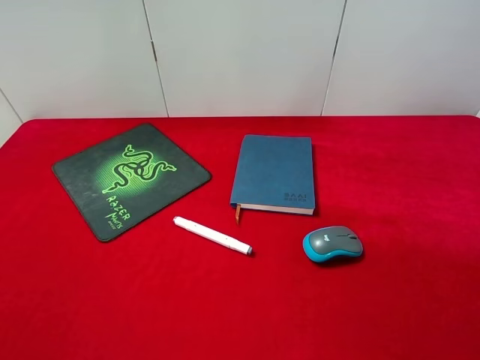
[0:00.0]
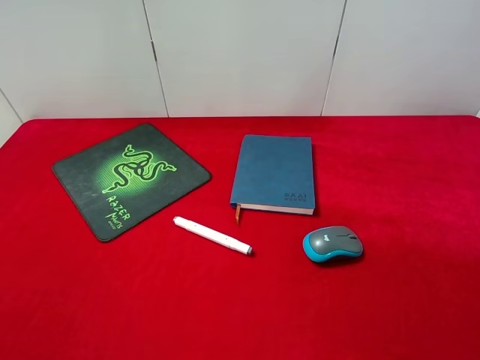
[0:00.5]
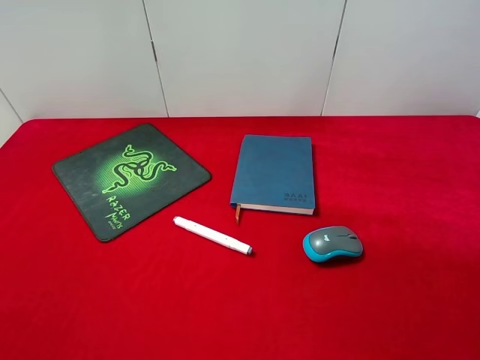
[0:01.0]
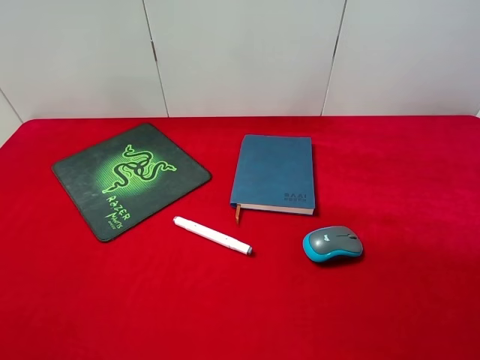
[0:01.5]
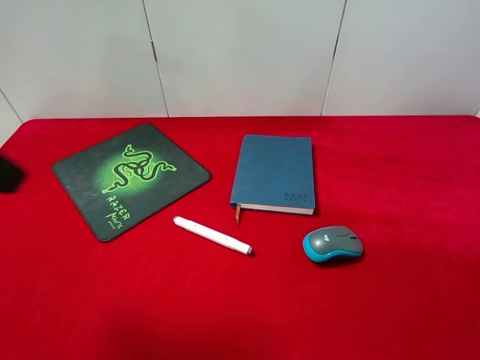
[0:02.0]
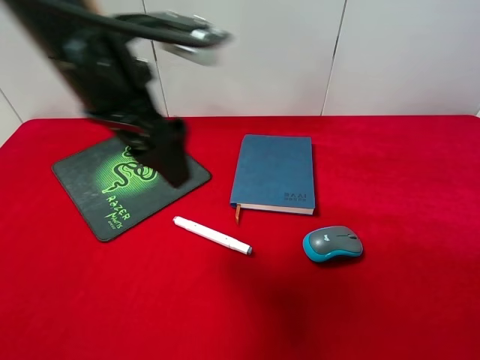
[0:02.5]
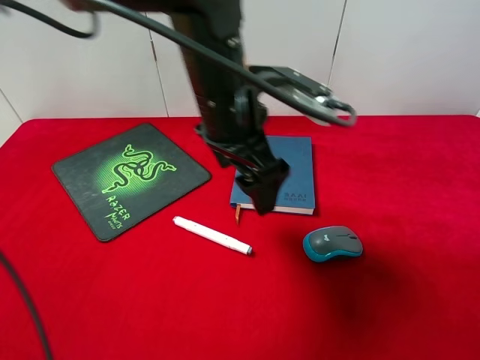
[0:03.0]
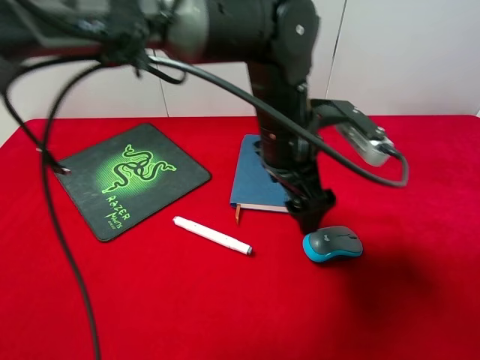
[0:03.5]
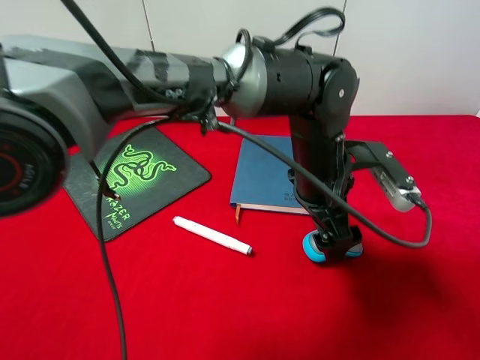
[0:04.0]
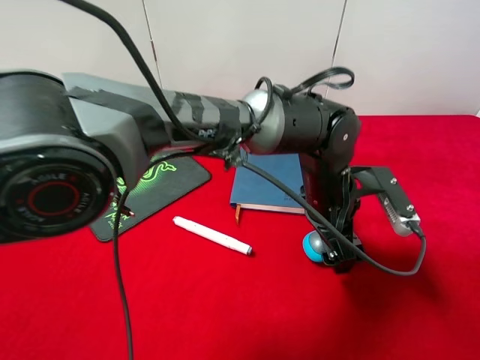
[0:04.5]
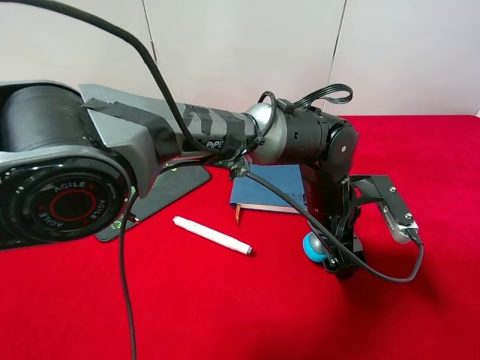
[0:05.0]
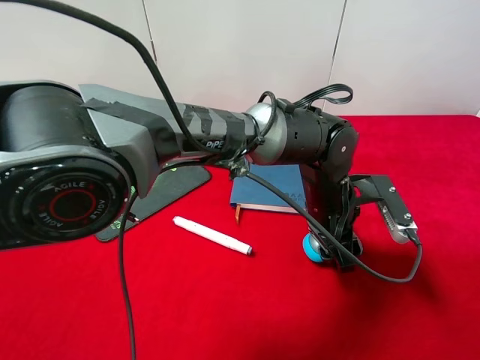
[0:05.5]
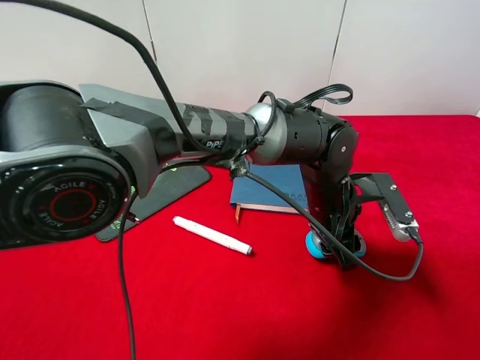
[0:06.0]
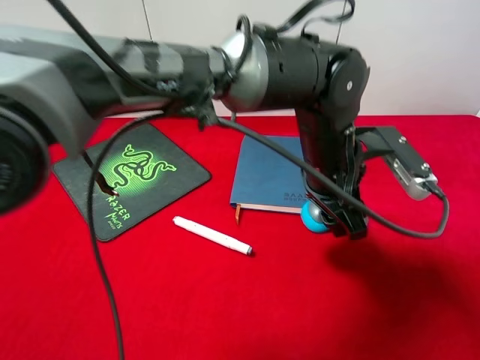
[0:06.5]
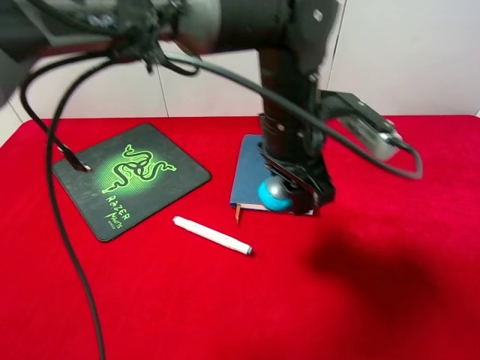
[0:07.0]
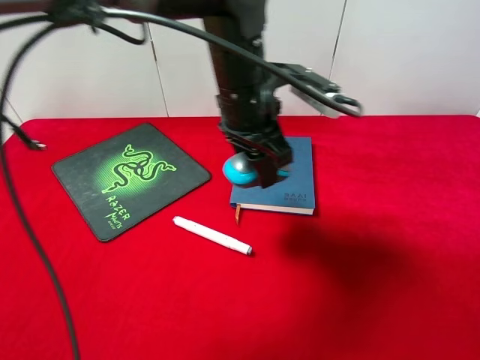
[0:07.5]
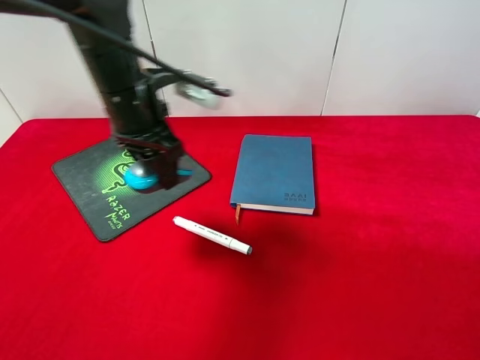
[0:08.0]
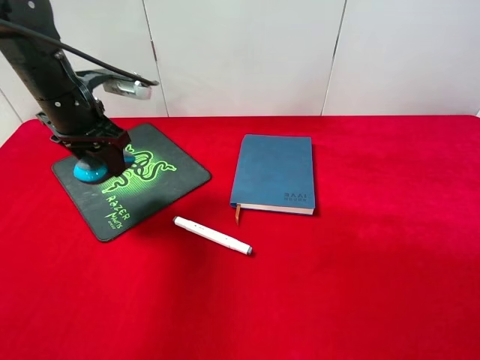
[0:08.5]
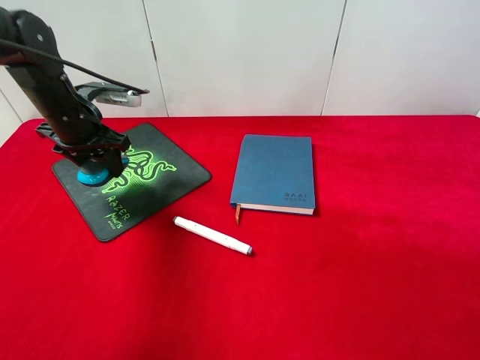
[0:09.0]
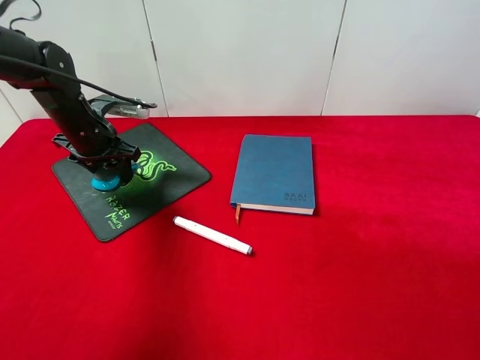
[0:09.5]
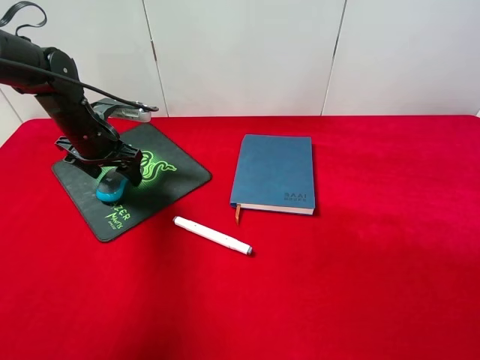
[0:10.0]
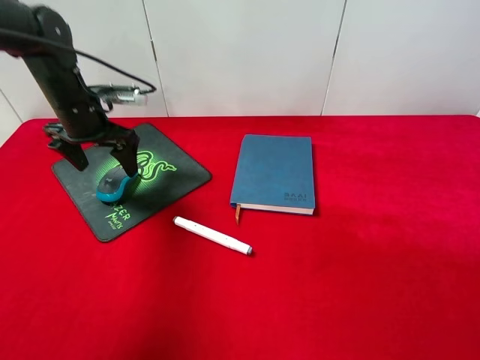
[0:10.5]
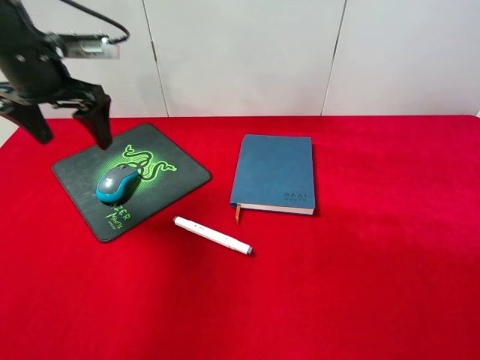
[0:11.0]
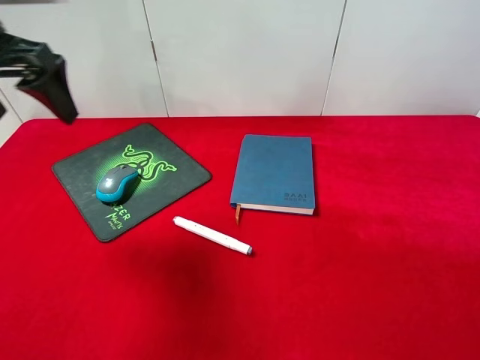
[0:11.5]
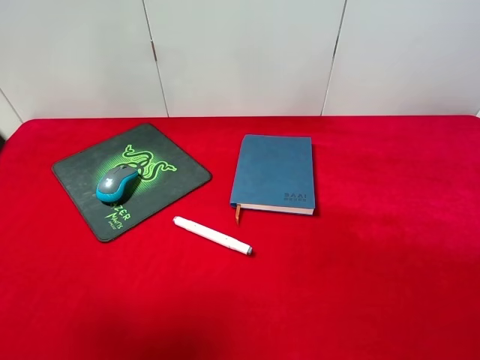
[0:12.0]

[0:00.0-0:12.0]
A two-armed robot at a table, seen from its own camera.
Step, 0:00.0 to 0:06.0: Pick up the mouse with left gripper.
Step, 0:06.5 to 0:10.0: Place the mouse on the mouse pad with left gripper.
0:02.0 to 0:04.0: The left gripper heads to the right and downward, covering roughly 40 cm.
0:04.0 to 0:06.0: The left gripper moves downward, roughly 5 cm, and closes.
0:06.0 to 0:08.0: The left gripper travels to the left and upward by about 30 cm.
0:08.0 to 0:10.0: The left gripper is displaced to the left, downward and forward by approximately 15 cm, and opens its fingers.
0:10.0 to 0:12.0: The left gripper heads backward and upward, covering about 35 cm.

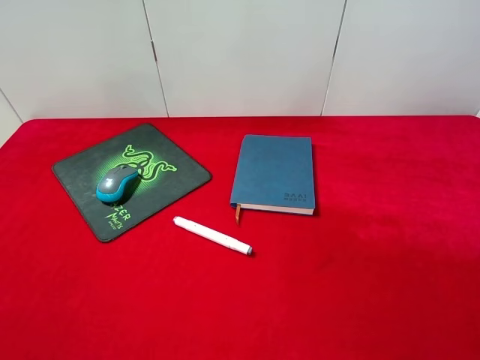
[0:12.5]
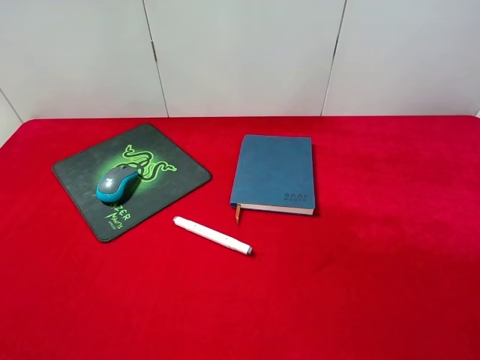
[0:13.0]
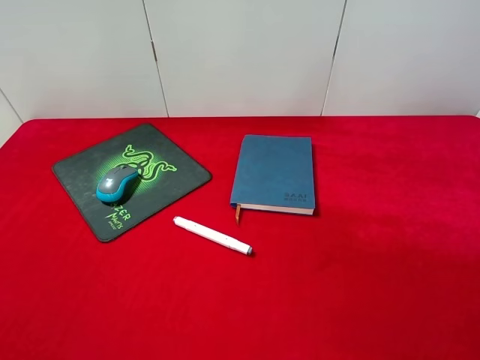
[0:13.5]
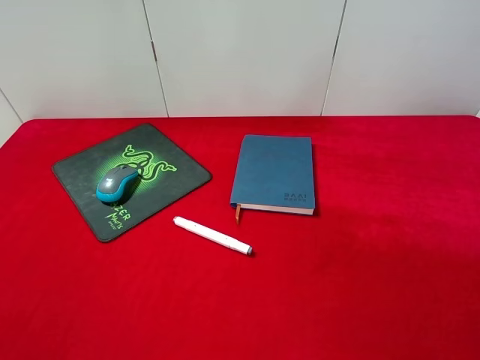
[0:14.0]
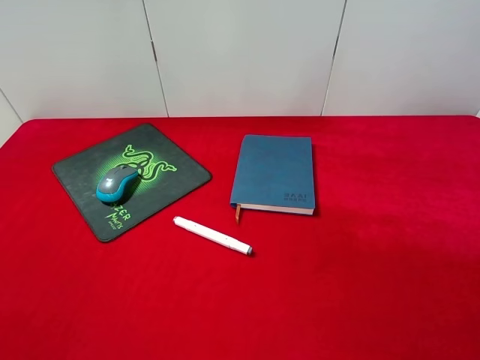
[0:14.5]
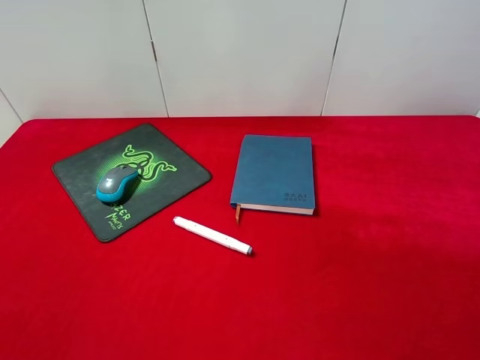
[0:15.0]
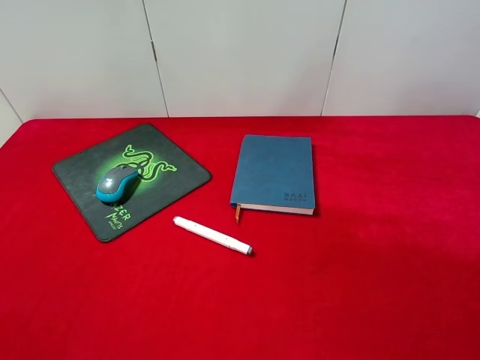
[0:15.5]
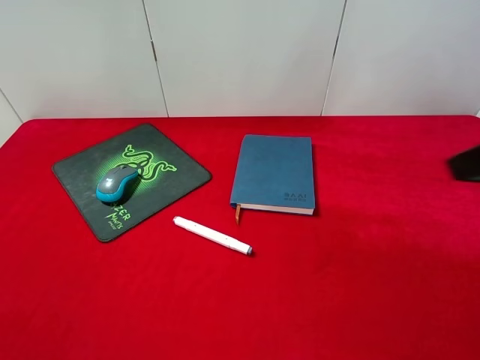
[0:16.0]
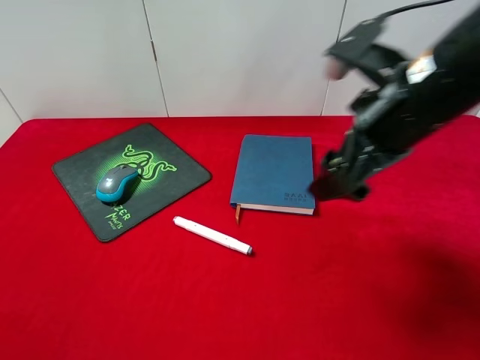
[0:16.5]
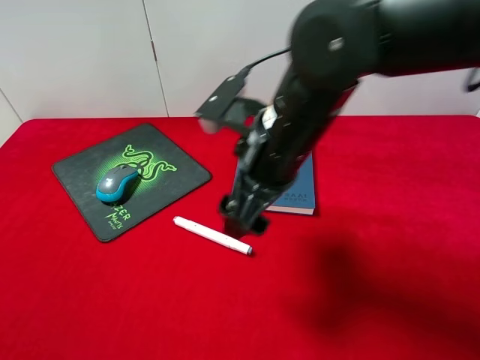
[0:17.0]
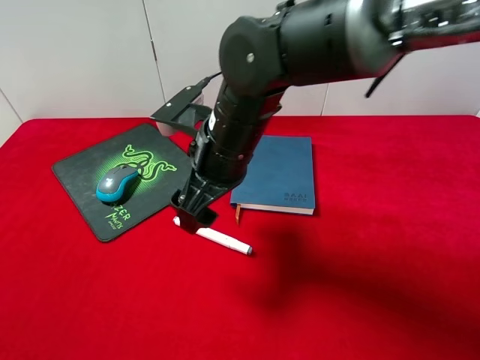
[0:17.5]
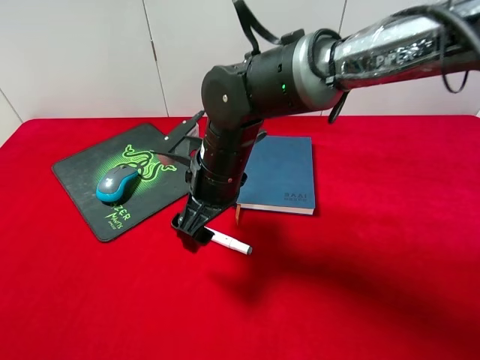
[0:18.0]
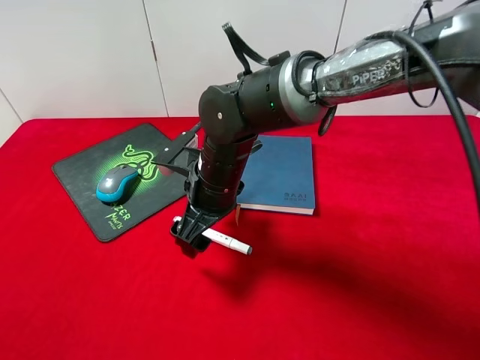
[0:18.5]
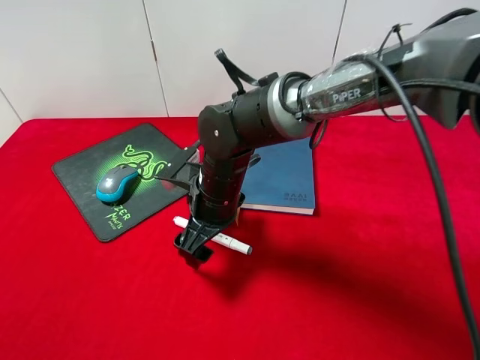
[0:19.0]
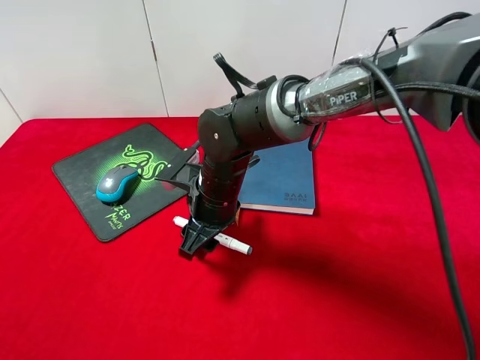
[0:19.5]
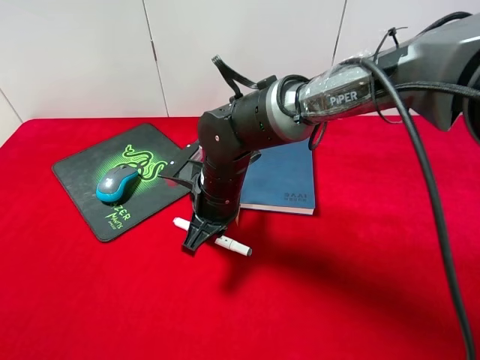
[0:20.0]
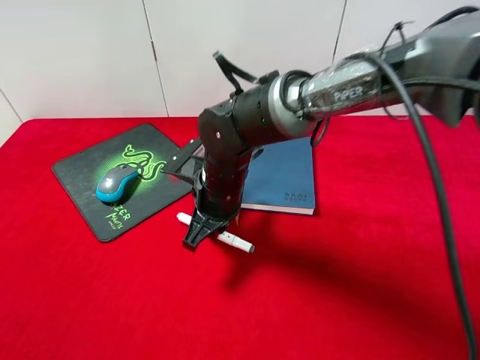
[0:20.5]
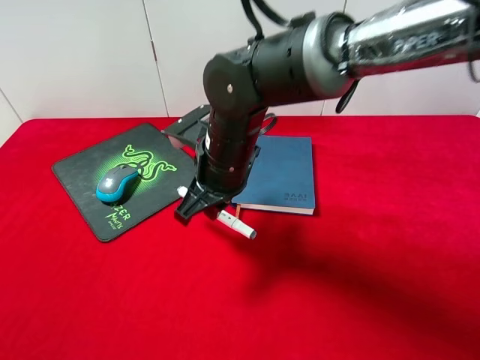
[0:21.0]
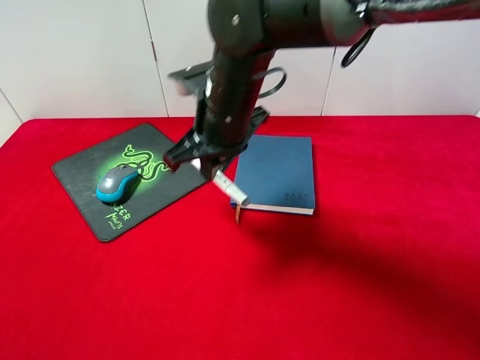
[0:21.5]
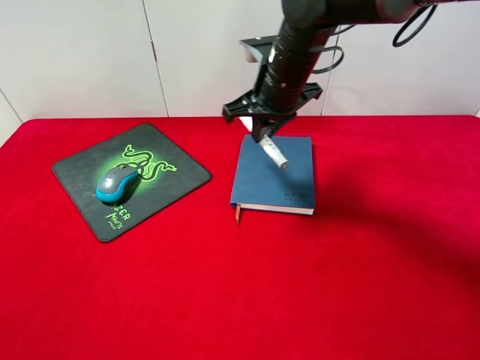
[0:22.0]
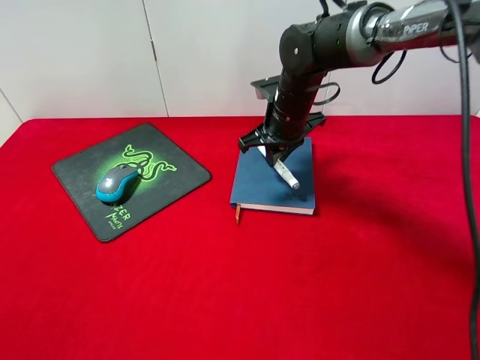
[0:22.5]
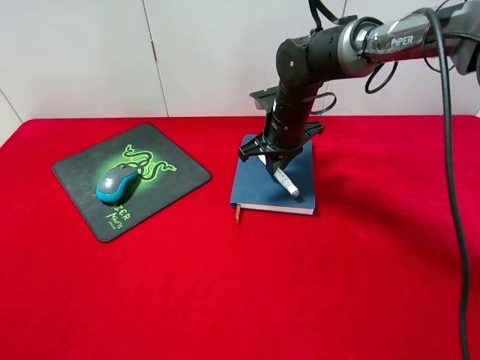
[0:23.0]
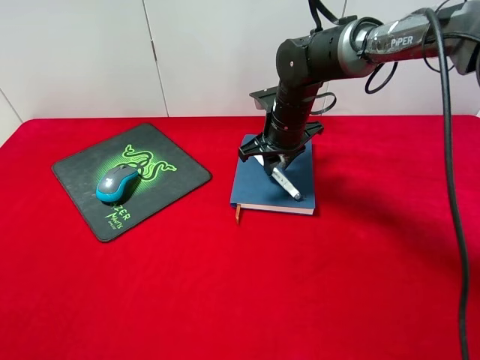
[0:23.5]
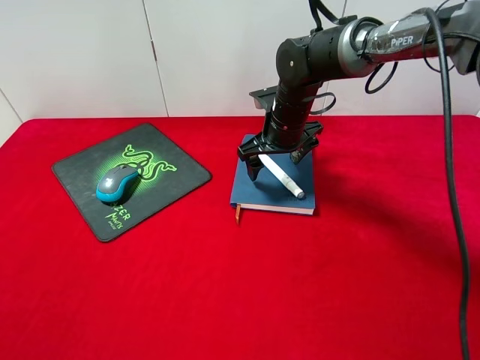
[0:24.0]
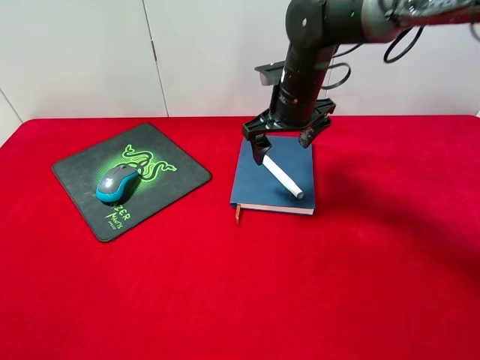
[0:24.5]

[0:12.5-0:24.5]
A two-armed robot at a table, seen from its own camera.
Step, 0:12.5 to 0:21.0: Pick up the marker pen with right gripper.
Step, 0:21.5 to 0:24.0: Place the marker pen on the notebook with right gripper.
0:14.5 to 0:16.5: The right gripper heads forward and to the left, covering some 25 cm.
0:16.5 to 0:18.5: The right gripper is displaced to the left and downward by about 20 cm.
0:18.5 to 0:20.5: The right gripper closes its fingers.
0:20.5 to 0:22.5: The right gripper moves forward and to the right, some 15 cm.
0:22.5 to 0:24.5: The right gripper opens up.

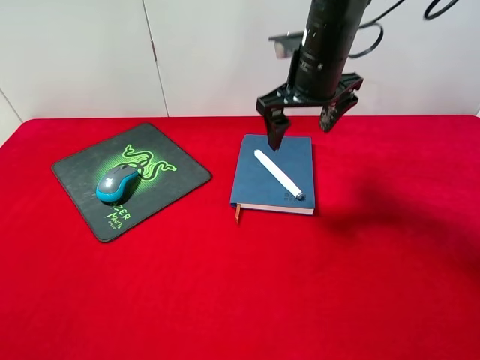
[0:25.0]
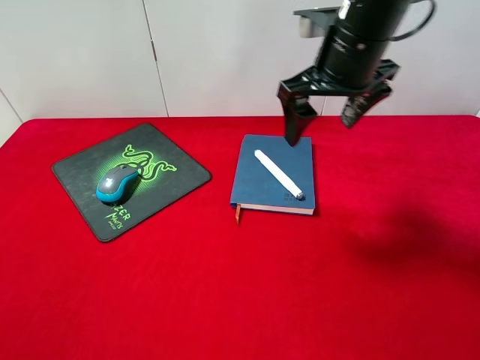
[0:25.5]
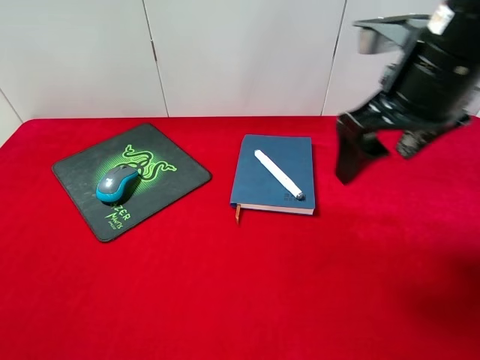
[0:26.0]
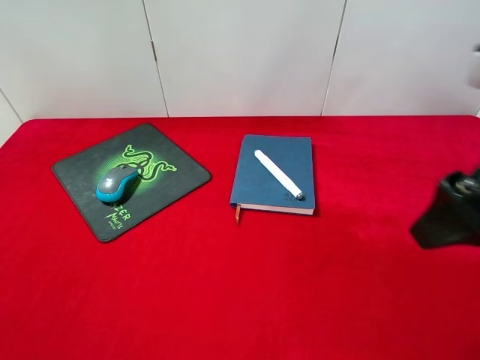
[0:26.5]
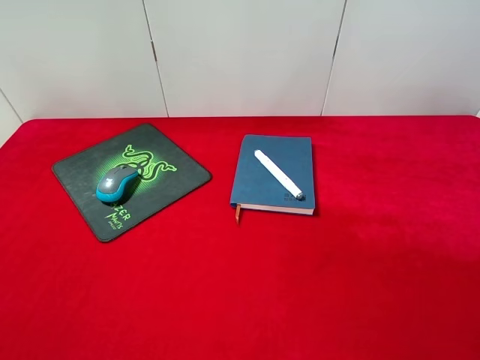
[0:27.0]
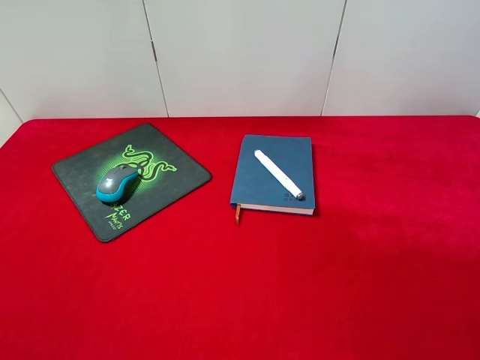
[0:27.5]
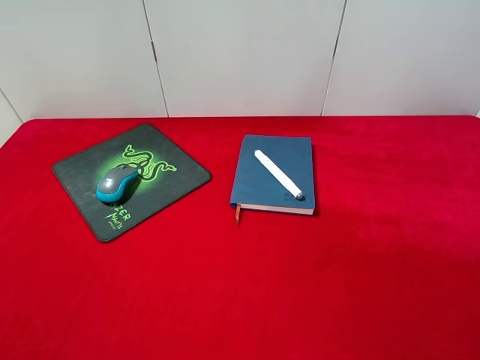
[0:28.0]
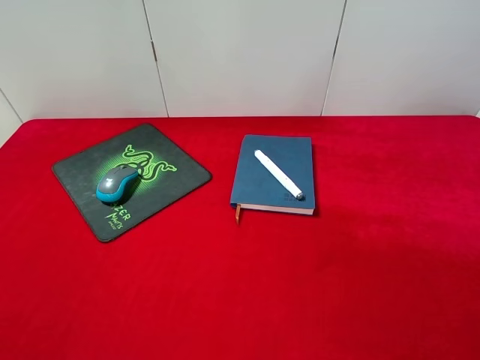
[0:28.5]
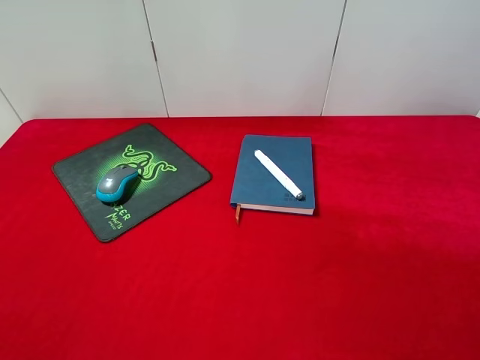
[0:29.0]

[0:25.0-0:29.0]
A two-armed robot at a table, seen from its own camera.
0:25.0 to 0:27.0: The right gripper shifts approximately 35 cm backward and to the right.
